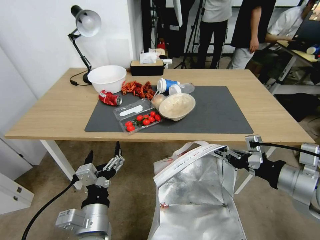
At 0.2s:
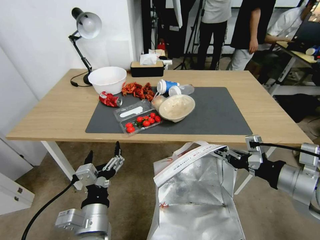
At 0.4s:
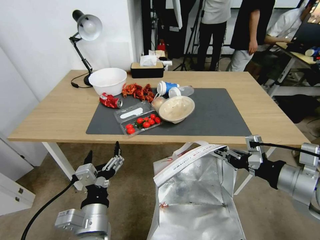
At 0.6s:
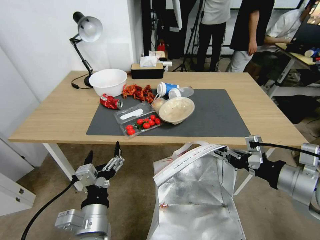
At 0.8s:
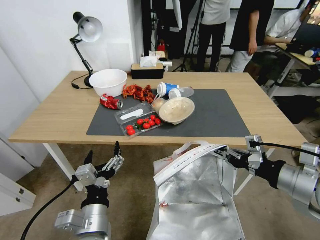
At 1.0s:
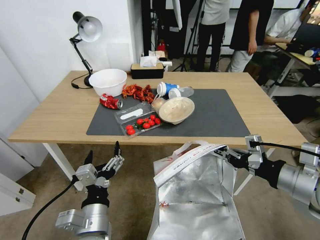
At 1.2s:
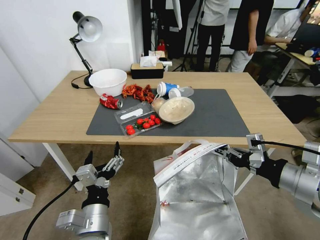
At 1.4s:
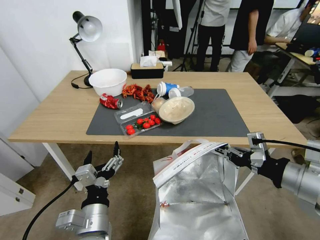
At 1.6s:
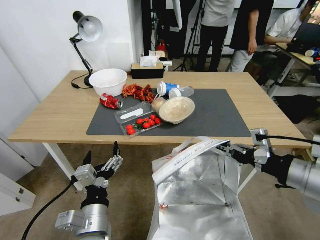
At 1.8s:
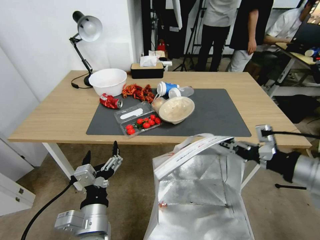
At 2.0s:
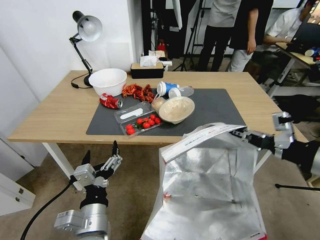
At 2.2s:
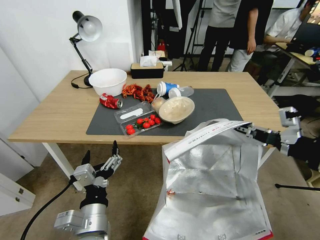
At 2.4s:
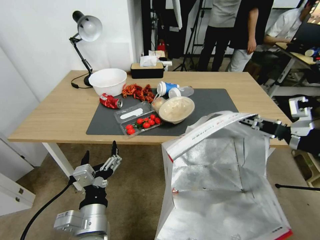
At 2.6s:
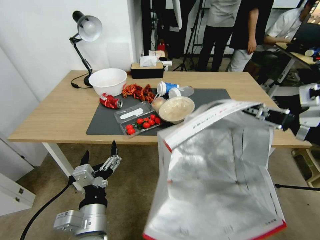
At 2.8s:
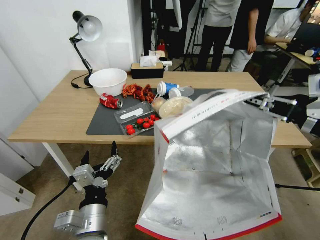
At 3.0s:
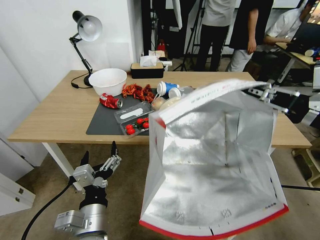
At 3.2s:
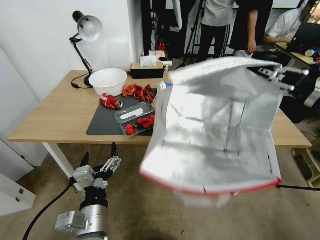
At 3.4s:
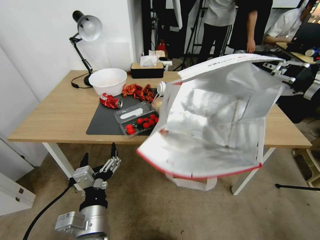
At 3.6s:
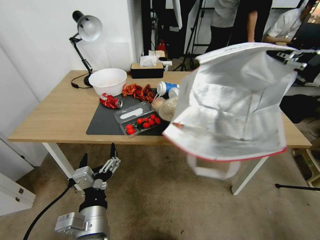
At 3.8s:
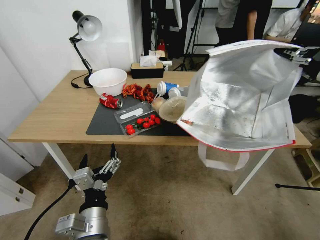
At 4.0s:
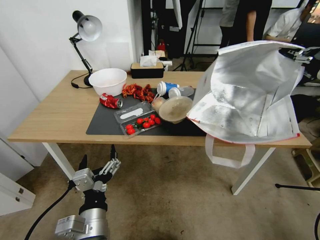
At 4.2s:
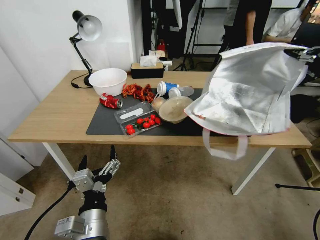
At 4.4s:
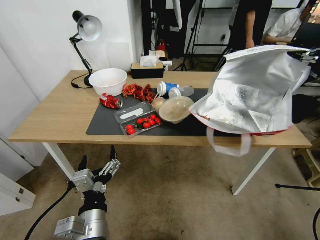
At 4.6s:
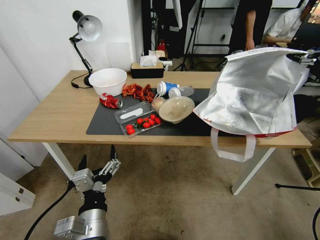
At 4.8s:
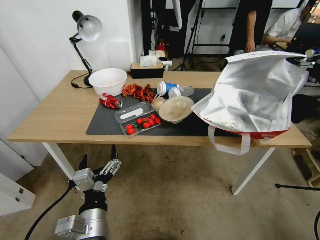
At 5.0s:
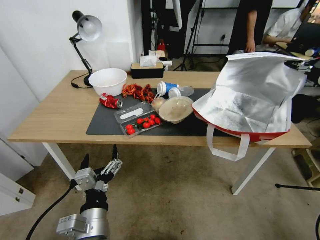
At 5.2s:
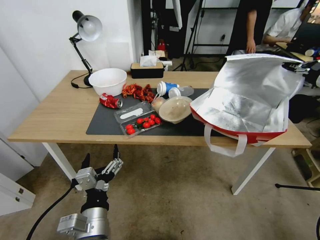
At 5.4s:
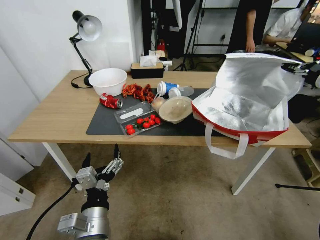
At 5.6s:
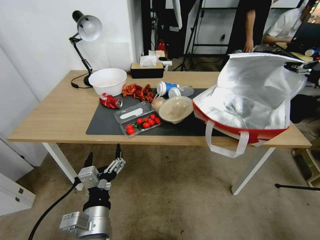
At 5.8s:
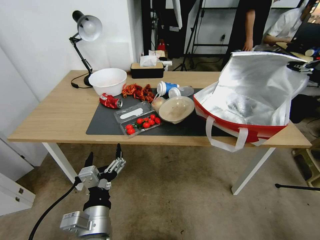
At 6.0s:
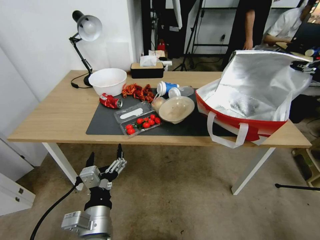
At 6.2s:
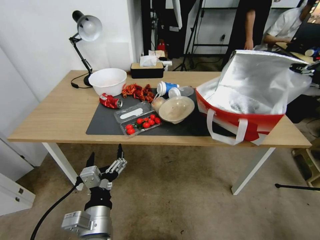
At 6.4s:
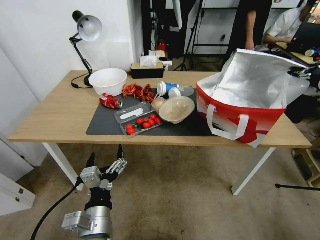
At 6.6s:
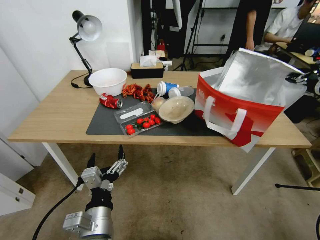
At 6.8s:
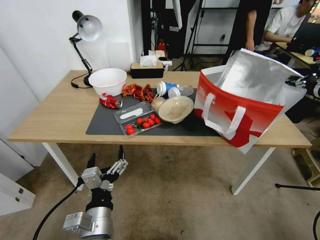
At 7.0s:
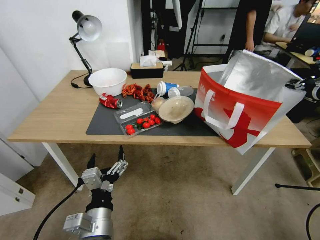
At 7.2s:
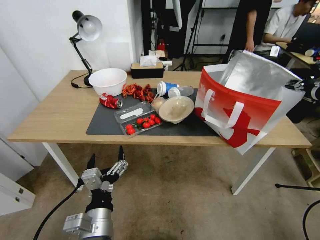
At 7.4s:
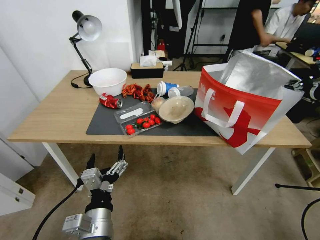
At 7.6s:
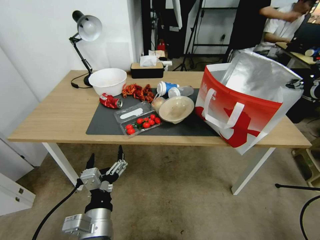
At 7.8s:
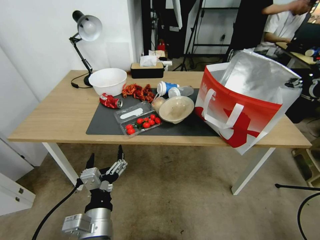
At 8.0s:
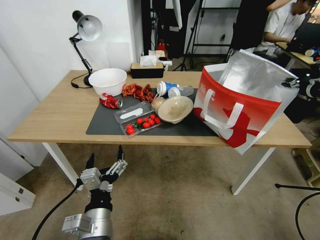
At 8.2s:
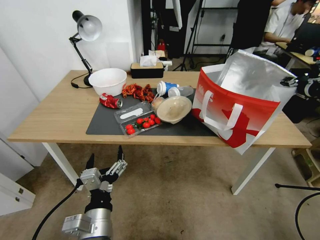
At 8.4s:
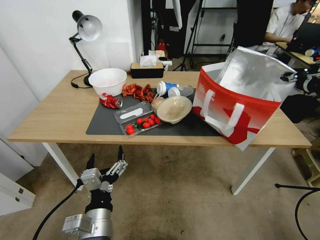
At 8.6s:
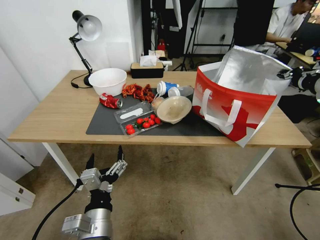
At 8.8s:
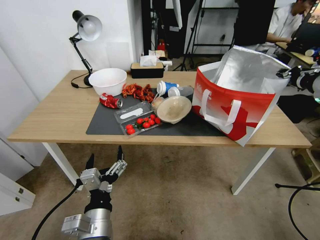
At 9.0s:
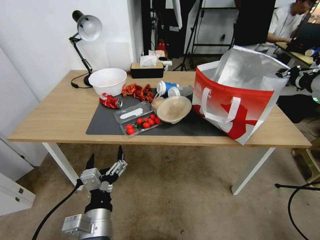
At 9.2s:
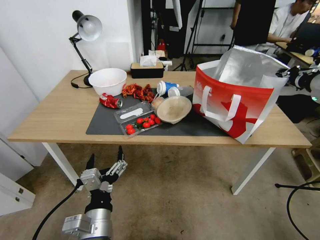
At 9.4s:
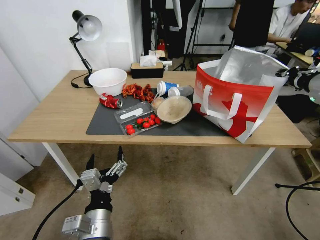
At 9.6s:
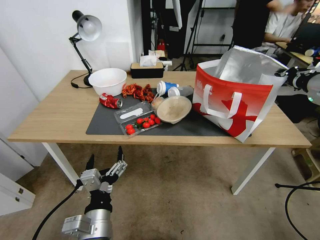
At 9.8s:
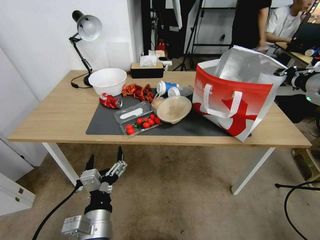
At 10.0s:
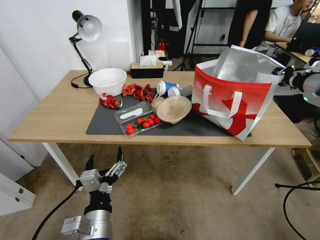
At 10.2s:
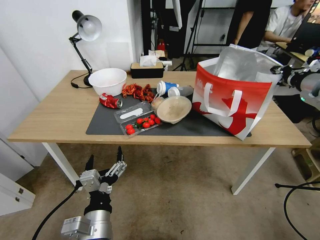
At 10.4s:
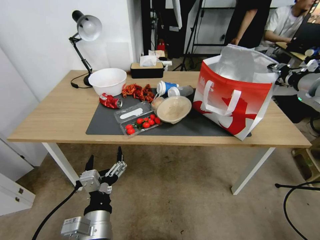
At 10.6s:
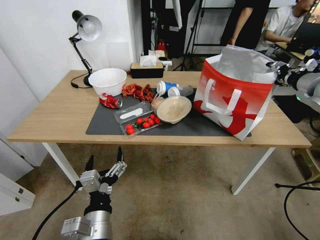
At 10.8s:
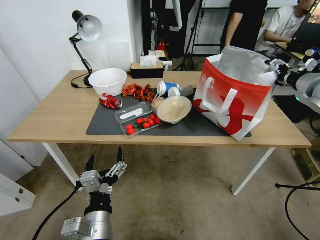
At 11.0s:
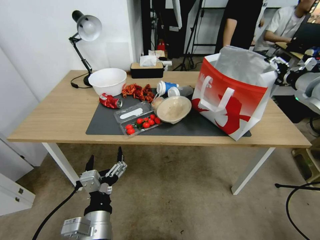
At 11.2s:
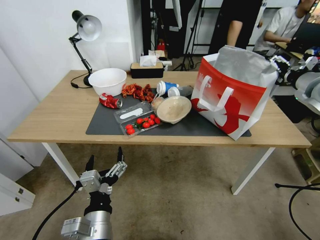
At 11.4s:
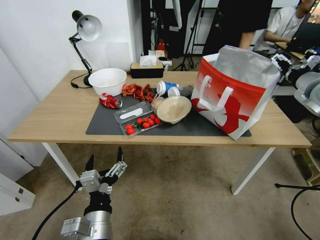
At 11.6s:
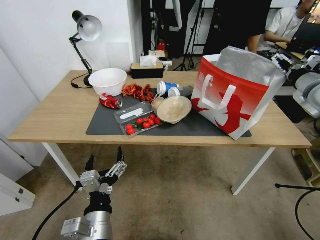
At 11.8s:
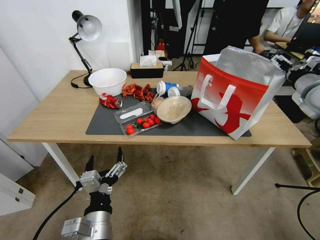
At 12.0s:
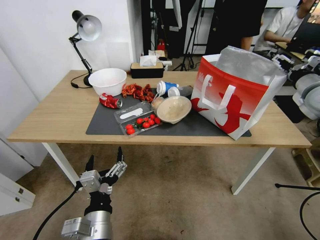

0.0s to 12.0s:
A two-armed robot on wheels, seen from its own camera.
Task of the whole recording: Pick up the food delivery bag from the floor and place it on the table.
1.6s to 3.0s: The right gripper shifts about 10 cm upward.
3.0s to 4.4s: The right gripper shifts roughly 15 cm forward and to the right.
4.4s to 6.0s: The right gripper shifts by roughly 5 cm.
6.0s to 7.6s: The grippers stay close to where they were, moving slightly.
7.6s to 9.0s: The grippers move only a little.
9.0s to 10.4s: The right gripper opens its fingers.
10.4s to 12.0s: The right gripper opens up.

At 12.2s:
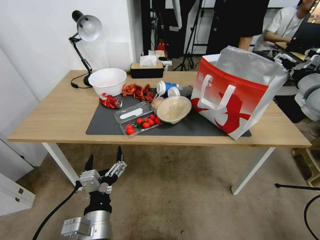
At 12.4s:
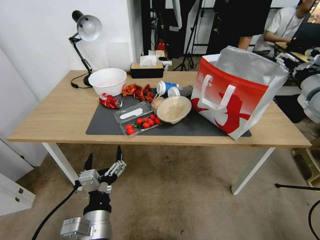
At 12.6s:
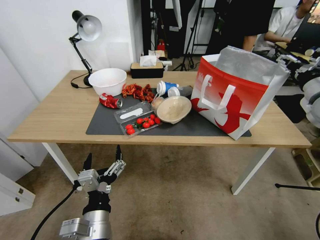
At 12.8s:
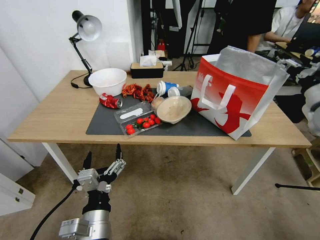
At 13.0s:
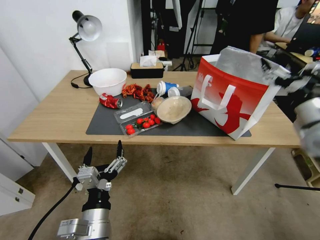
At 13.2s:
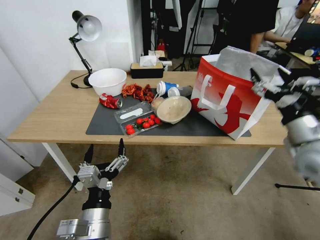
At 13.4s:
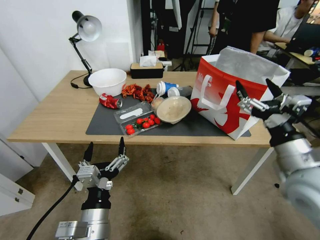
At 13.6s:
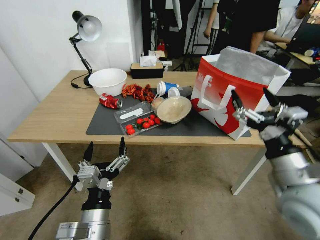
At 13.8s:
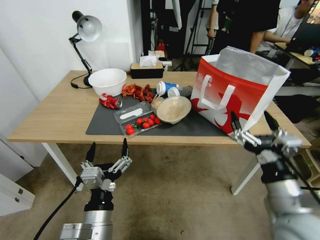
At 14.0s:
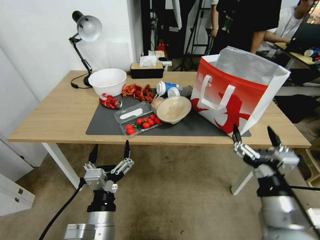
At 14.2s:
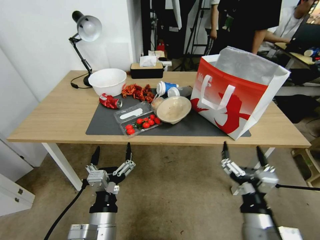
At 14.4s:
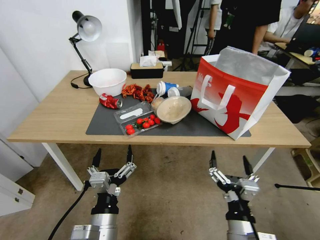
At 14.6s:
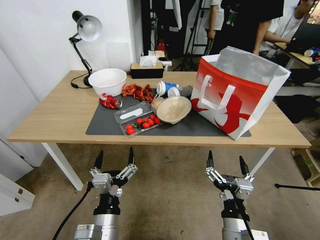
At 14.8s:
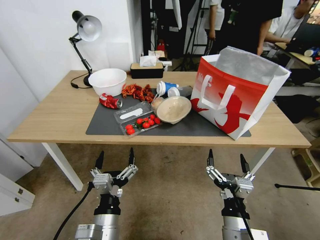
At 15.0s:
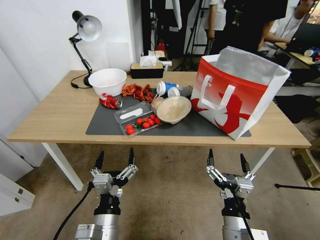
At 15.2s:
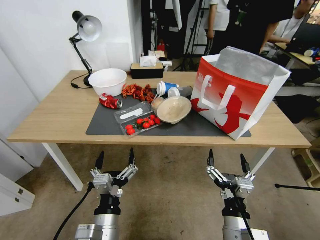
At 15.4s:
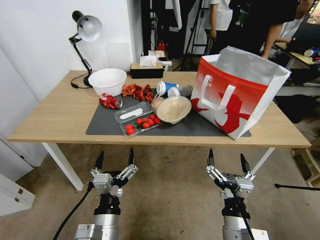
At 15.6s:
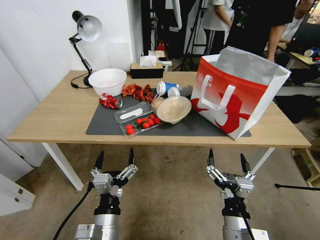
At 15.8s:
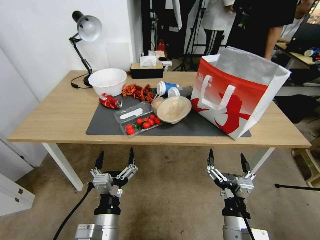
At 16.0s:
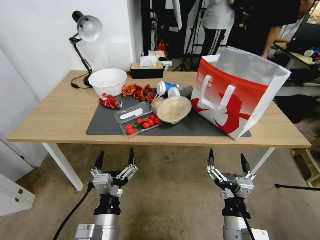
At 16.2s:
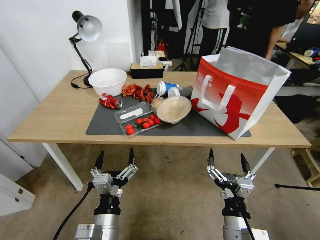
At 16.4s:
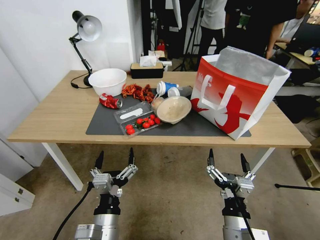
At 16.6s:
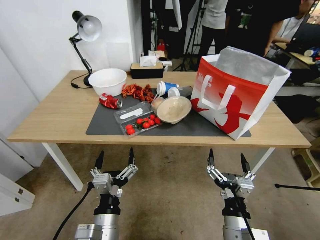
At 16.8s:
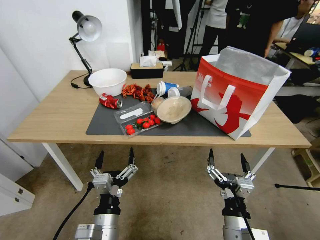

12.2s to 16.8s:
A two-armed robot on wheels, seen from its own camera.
Task of the whole recording: Pick up the food delivery bag from the floor and place it on the table.
12.2s to 13.8s: The right gripper goes approximately 35 cm backward, to the left and downward.
13.8s to 15.2s: The right gripper travels downward and to the left by some 15 cm.
15.2s to 16.8s: Both grippers stay put.

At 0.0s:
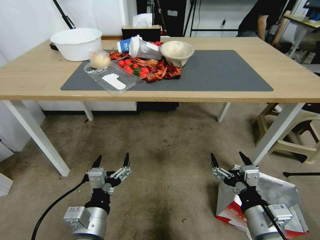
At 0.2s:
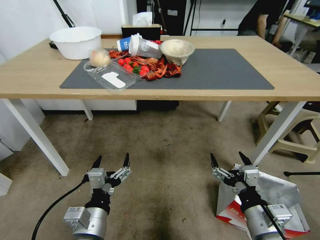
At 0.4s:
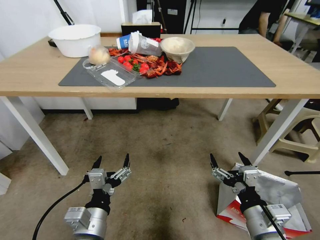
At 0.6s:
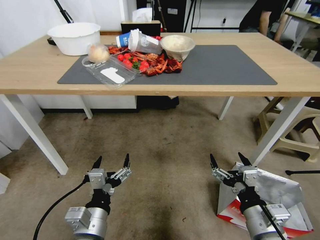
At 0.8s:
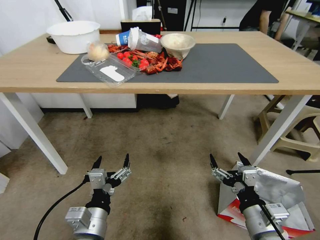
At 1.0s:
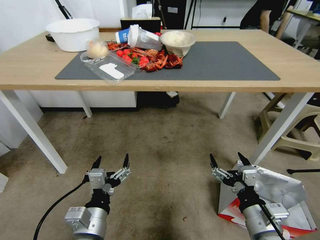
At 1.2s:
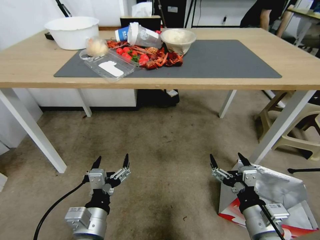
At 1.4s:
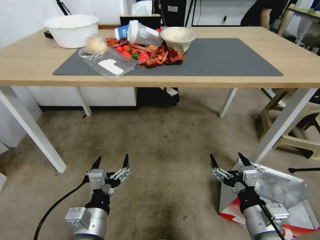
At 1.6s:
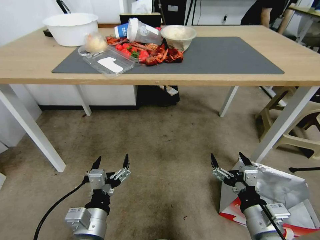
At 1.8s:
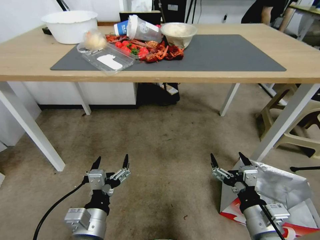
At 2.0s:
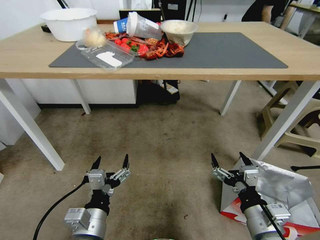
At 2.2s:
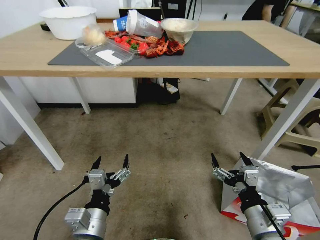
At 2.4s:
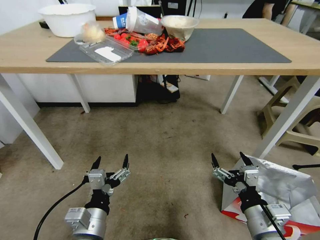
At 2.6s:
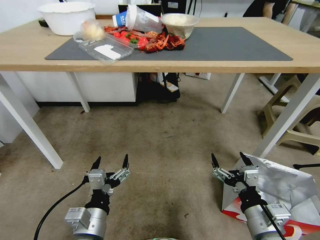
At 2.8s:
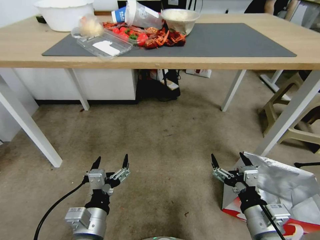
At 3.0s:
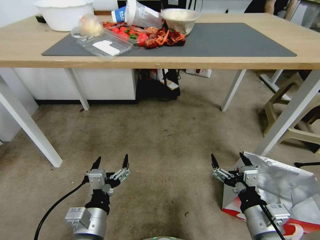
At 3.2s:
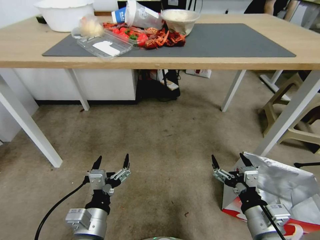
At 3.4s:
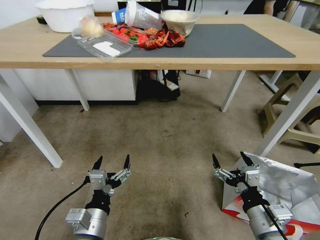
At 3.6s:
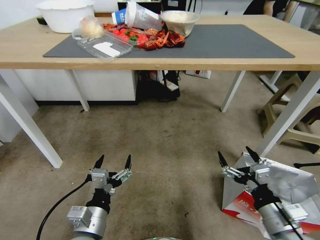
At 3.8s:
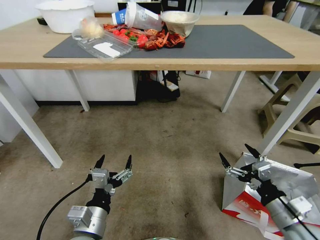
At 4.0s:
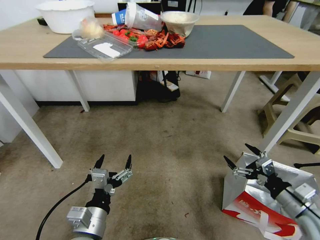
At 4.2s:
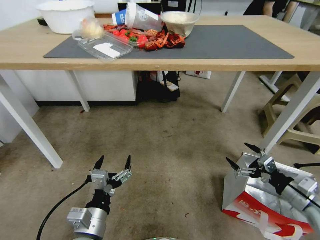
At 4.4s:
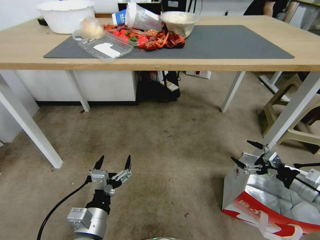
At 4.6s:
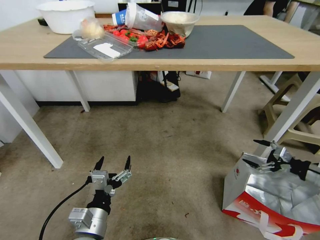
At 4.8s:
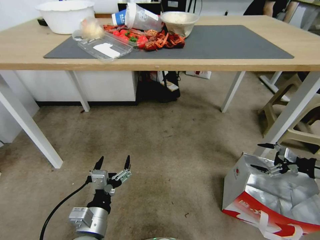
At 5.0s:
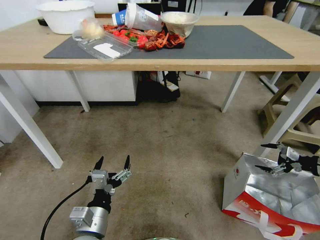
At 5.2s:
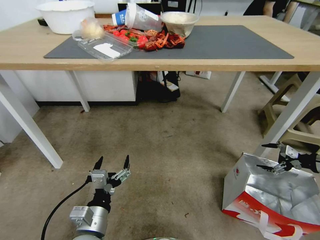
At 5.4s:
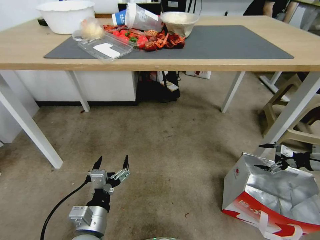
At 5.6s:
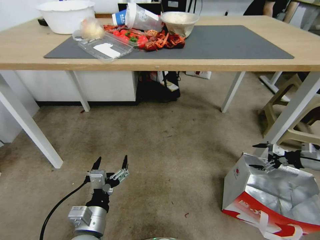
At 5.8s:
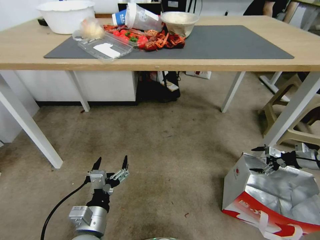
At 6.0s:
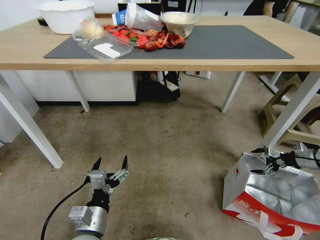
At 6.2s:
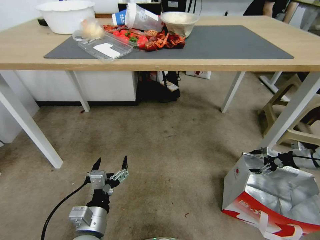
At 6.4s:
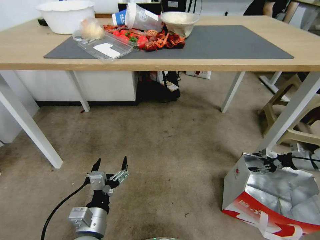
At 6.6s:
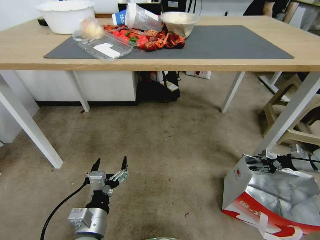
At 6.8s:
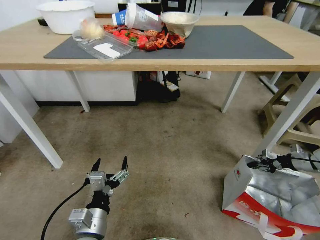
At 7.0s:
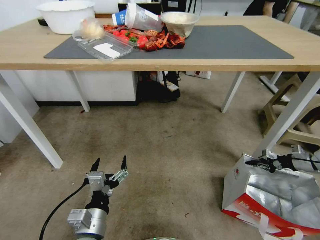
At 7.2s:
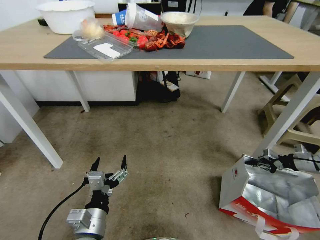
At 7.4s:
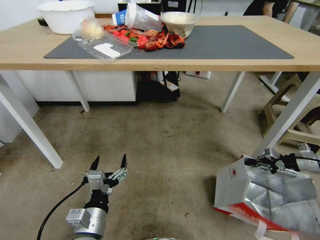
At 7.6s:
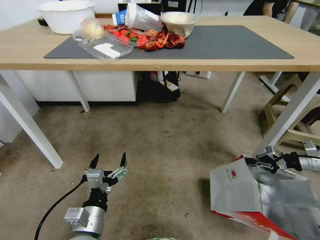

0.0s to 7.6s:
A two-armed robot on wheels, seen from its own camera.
Task of the whole recording: Pick up the food delivery bag from the floor and place it on the table.
3.0s to 4.6s: The right gripper shifts roughly 35 cm to the right and forward.
4.6s to 6.0s: The right gripper is displaced forward and to the right by roughly 10 cm.
6.0s to 7.6s: The right gripper closes.
